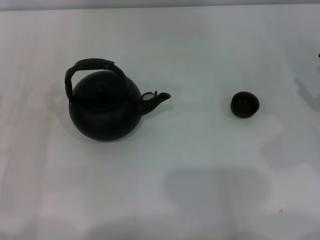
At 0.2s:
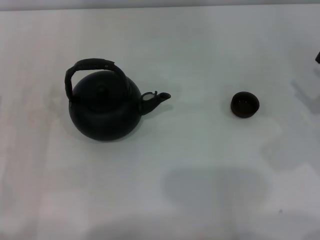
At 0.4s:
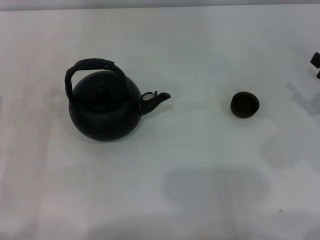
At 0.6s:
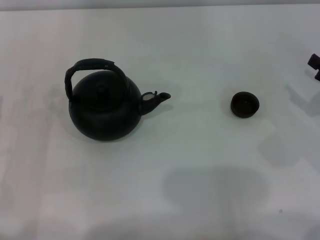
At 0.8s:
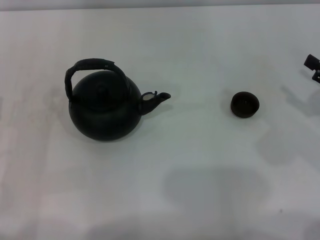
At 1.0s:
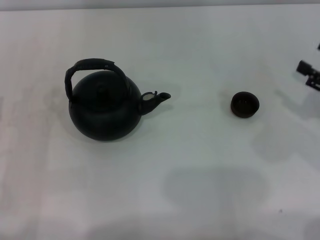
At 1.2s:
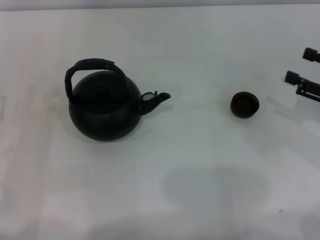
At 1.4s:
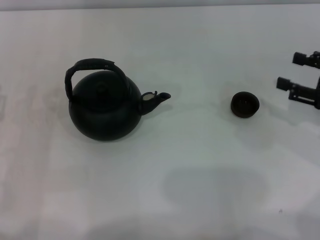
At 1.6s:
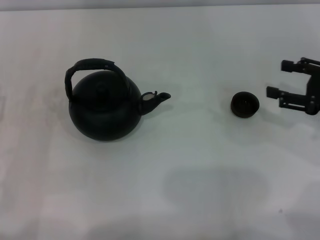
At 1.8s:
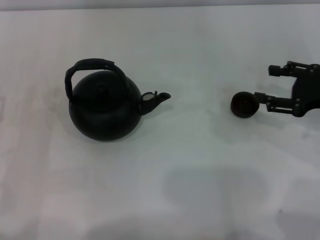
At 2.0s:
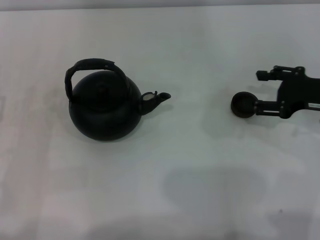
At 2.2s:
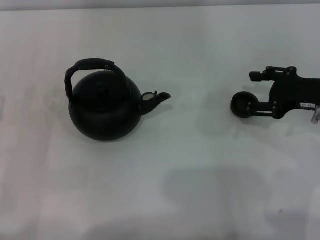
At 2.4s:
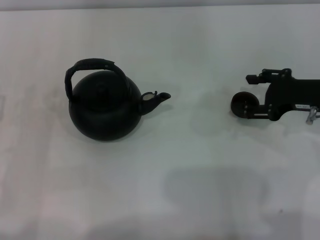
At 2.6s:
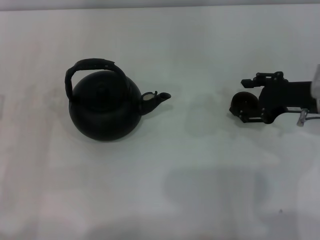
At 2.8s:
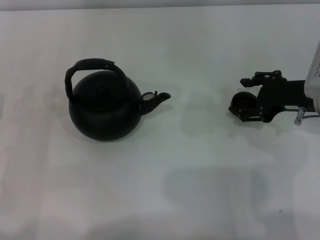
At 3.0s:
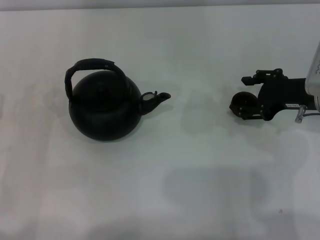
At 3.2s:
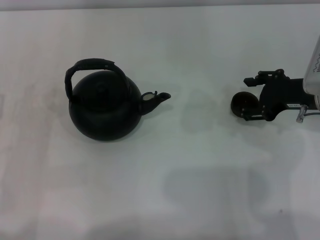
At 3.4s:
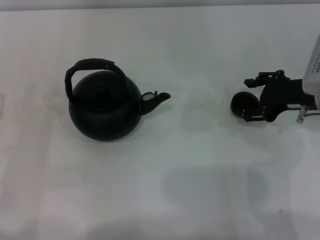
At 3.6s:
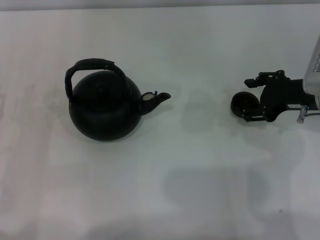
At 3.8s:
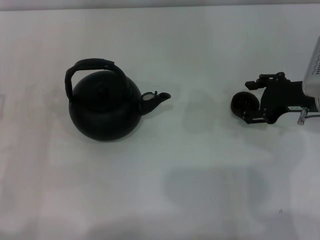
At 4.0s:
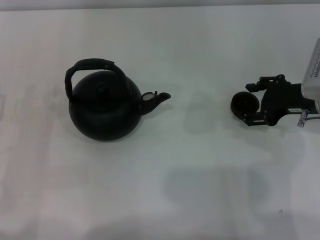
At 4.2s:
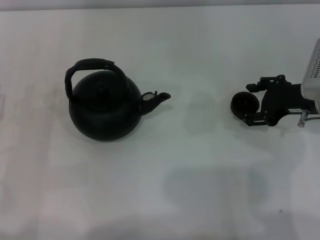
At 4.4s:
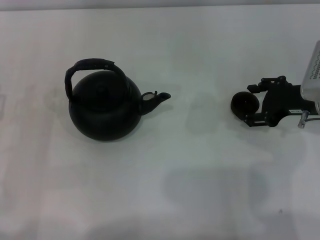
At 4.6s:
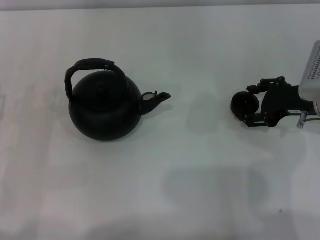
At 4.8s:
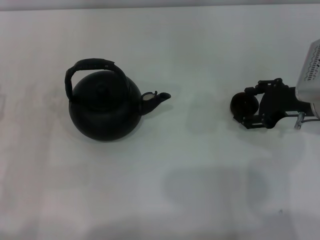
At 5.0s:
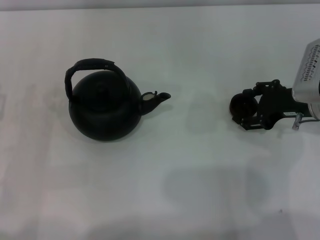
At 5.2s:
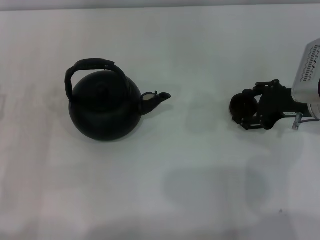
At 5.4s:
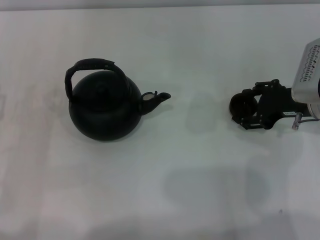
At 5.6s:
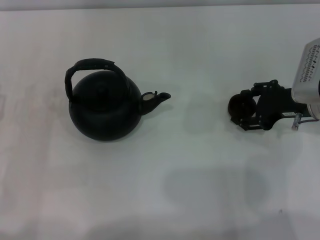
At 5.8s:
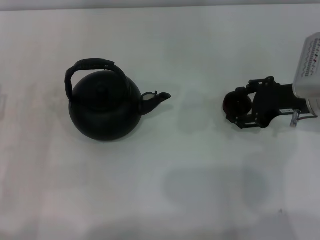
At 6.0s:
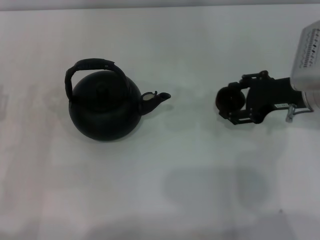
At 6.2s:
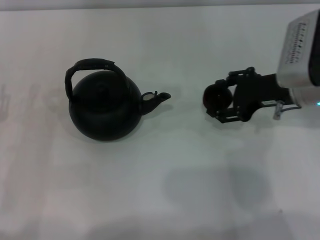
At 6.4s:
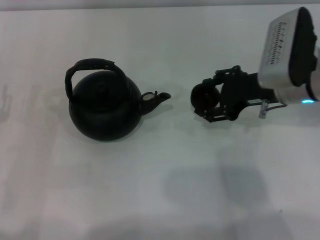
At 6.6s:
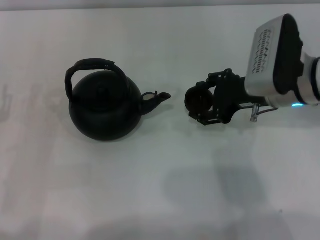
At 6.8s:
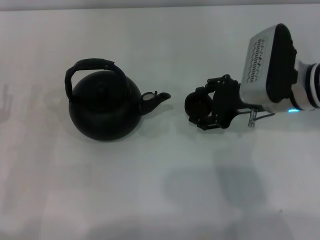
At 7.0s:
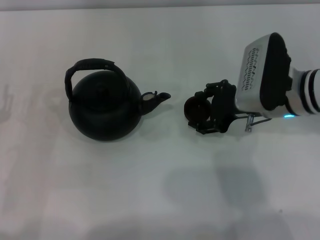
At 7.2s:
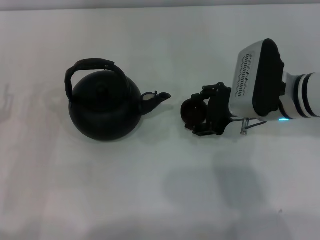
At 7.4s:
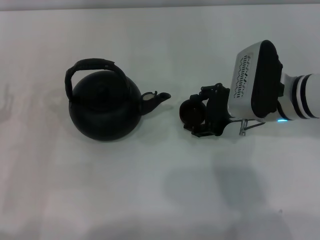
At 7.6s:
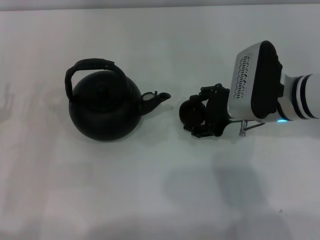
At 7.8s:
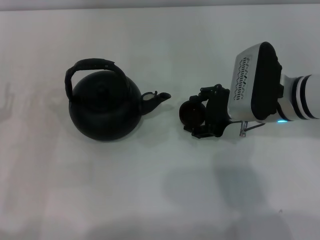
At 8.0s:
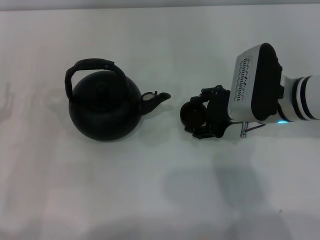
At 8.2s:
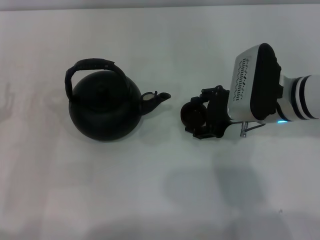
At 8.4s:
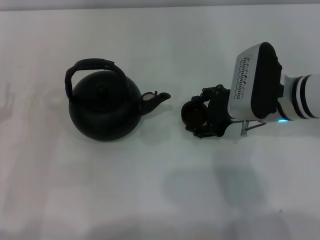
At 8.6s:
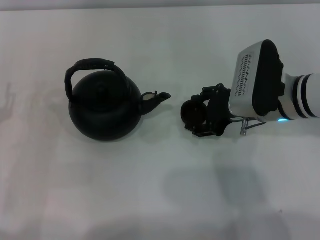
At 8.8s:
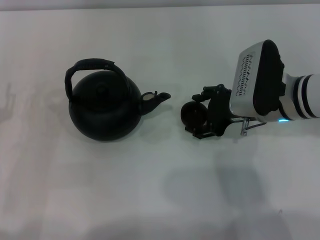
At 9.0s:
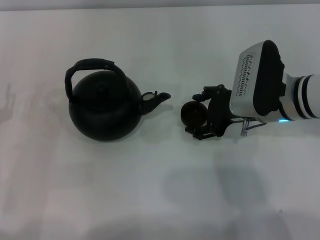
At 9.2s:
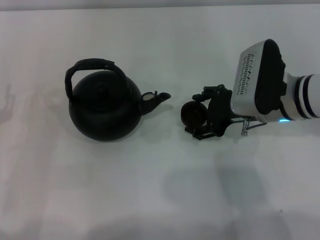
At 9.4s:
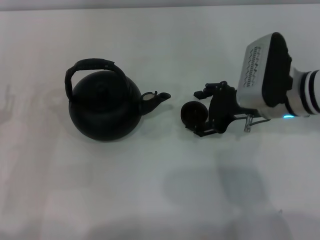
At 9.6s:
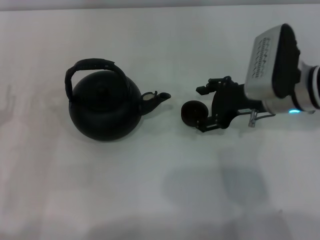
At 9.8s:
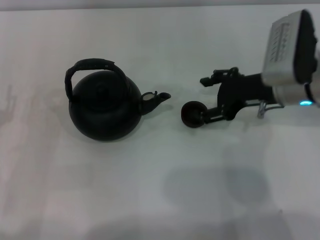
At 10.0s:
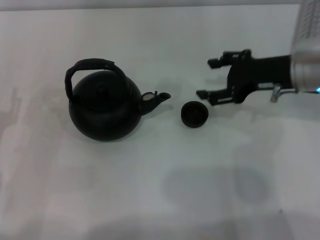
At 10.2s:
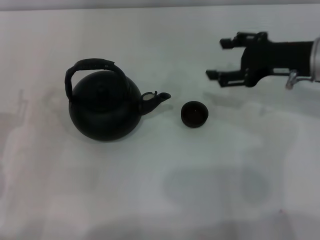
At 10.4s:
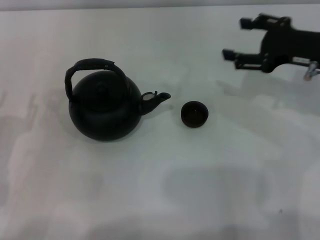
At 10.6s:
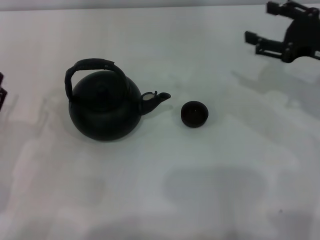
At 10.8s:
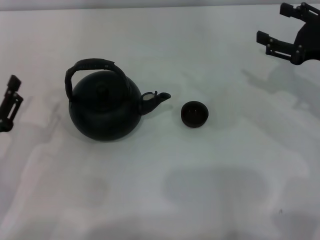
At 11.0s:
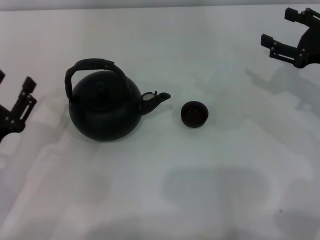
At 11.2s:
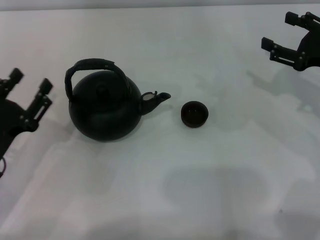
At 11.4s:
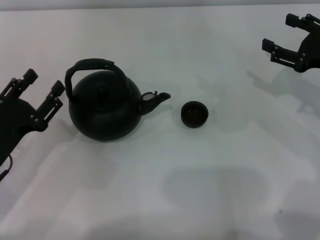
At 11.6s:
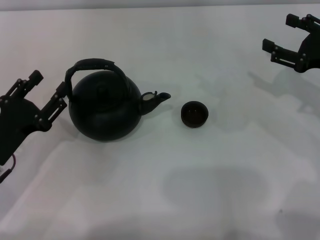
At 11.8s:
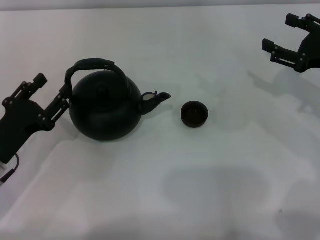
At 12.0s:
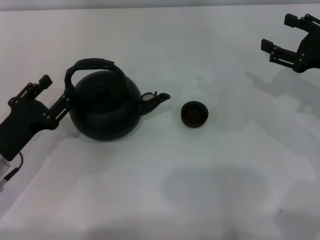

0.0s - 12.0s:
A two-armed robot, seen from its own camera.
Task of the whole recording: Grasp the handle of the teapot with one hand and pour tea into the teacup.
Step, 0.0s - 5.8s: Pick up the teacup with the right gripper.
Step, 6.0s - 9.6s: Place the teacup in the center of view with the right gripper.
0.0s - 1.6s: The right gripper moves approximately 5 cm.
1.6s - 3.0s: The right gripper heads to the left, covering roughly 5 cm.
3.0s - 4.4s: Both grippers stay about where they are.
4.4s - 6.0s: There are only small adjustments of the grippers.
6.0s - 7.6s: The right gripper is displaced to the left by some 5 cm.
7.6s - 9.0s: Neither gripper changes place.
9.0s - 10.4s: The right gripper moves to the right and upward, roughly 10 cm.
10.4s - 12.0s: The right gripper shifts by some 5 cm.

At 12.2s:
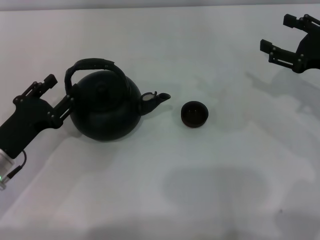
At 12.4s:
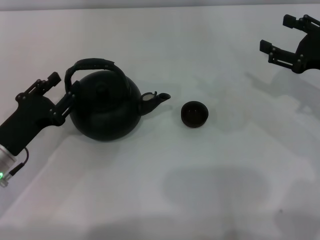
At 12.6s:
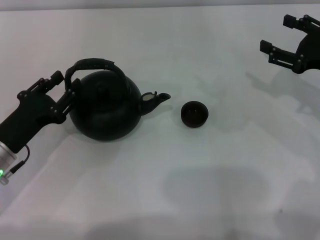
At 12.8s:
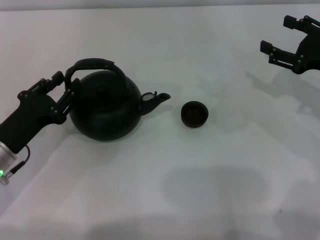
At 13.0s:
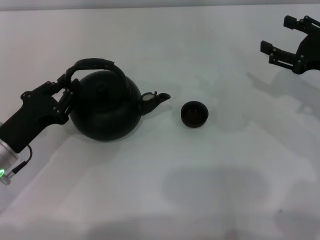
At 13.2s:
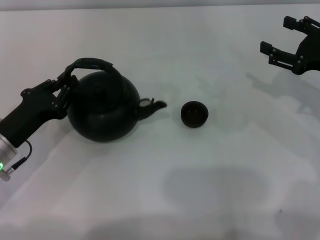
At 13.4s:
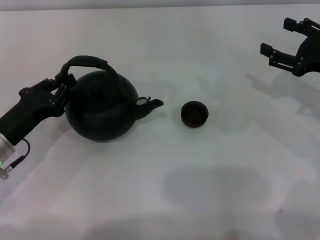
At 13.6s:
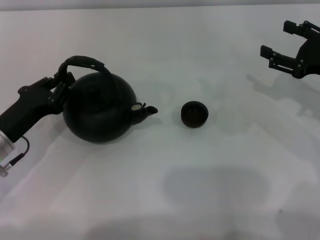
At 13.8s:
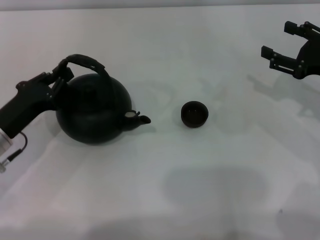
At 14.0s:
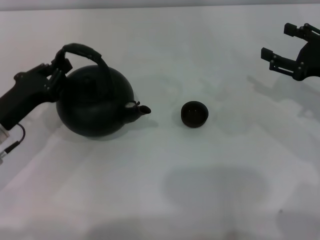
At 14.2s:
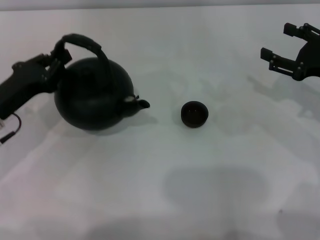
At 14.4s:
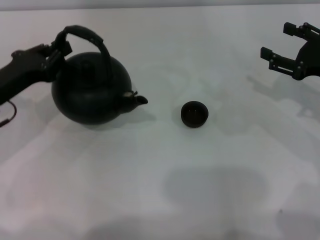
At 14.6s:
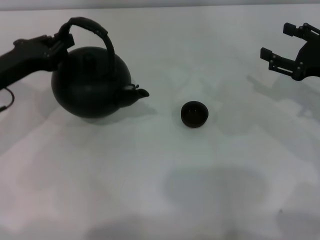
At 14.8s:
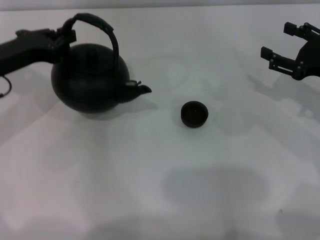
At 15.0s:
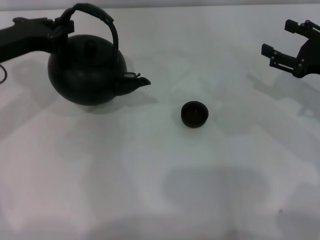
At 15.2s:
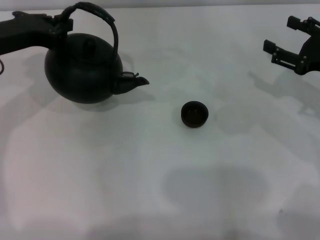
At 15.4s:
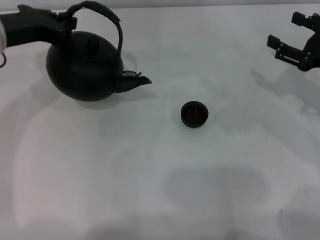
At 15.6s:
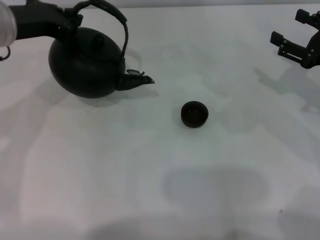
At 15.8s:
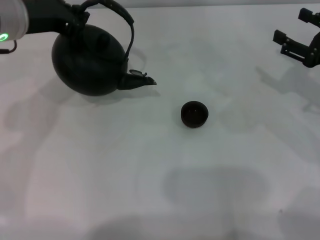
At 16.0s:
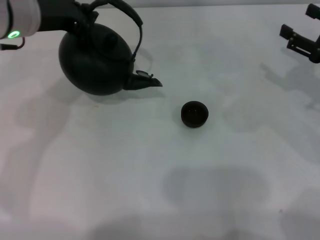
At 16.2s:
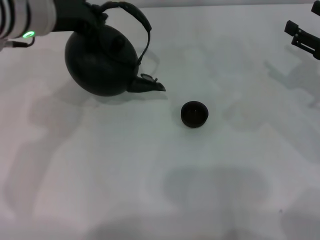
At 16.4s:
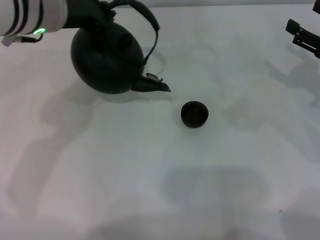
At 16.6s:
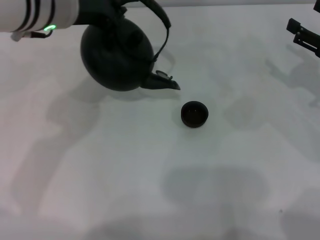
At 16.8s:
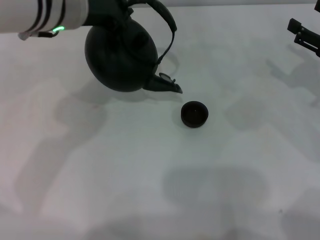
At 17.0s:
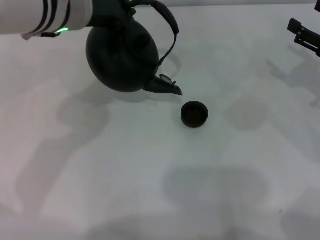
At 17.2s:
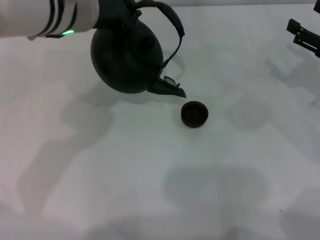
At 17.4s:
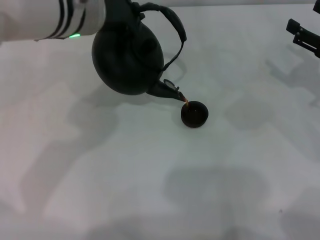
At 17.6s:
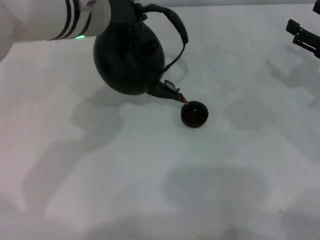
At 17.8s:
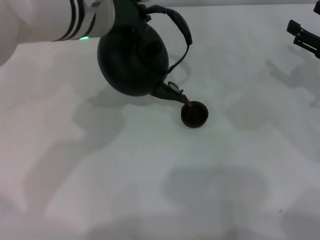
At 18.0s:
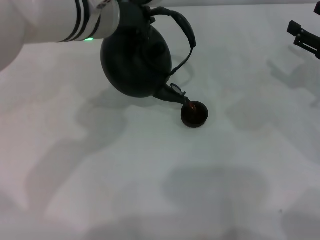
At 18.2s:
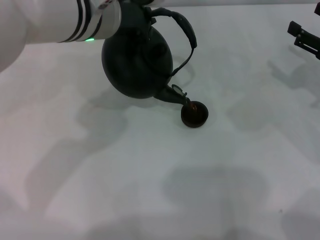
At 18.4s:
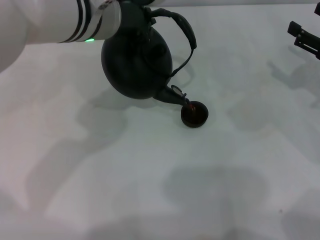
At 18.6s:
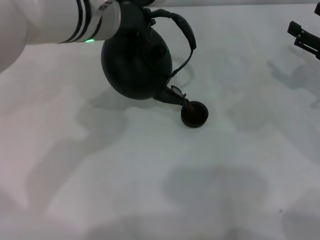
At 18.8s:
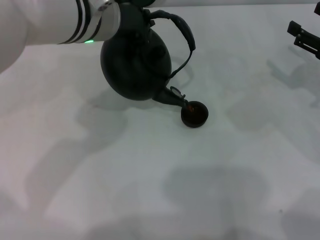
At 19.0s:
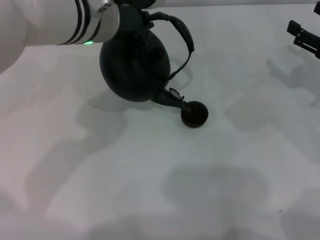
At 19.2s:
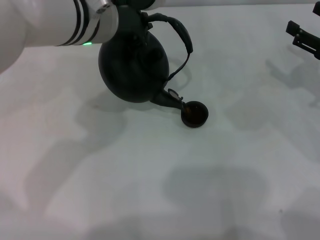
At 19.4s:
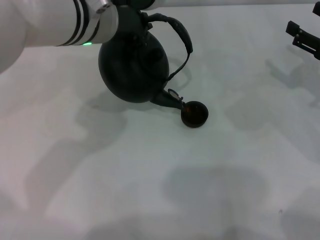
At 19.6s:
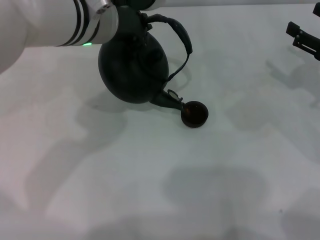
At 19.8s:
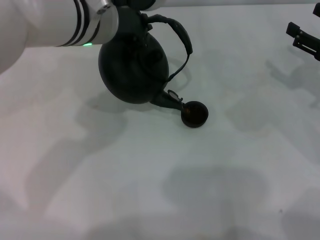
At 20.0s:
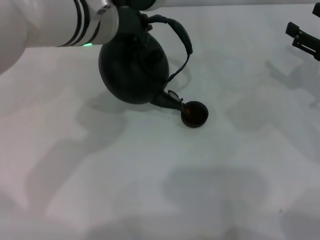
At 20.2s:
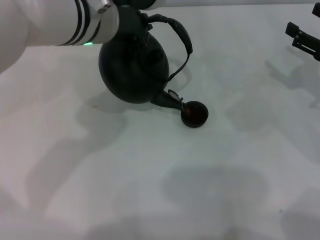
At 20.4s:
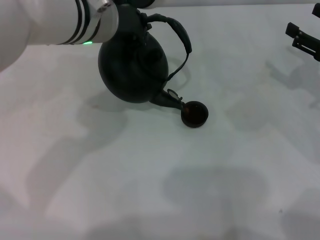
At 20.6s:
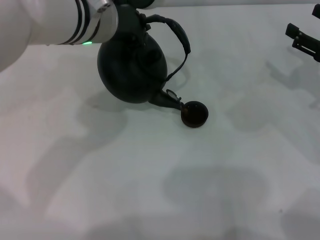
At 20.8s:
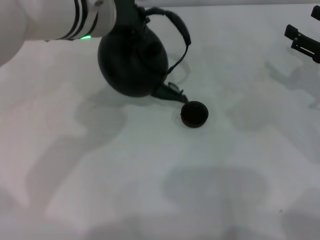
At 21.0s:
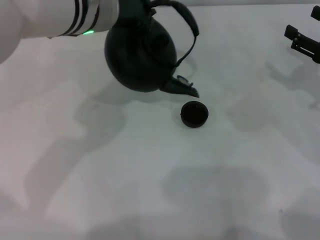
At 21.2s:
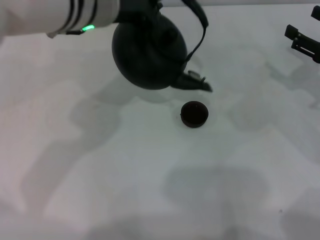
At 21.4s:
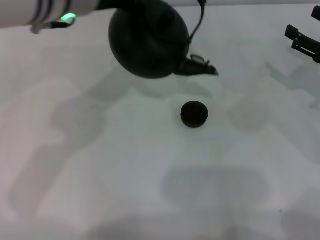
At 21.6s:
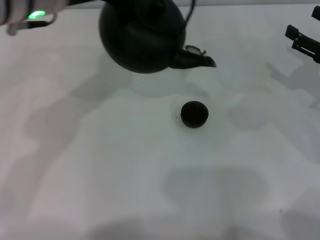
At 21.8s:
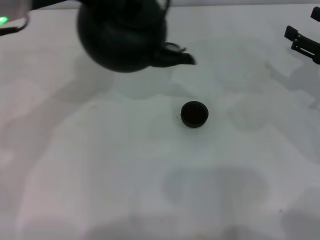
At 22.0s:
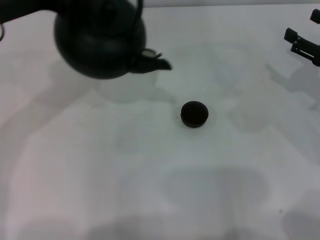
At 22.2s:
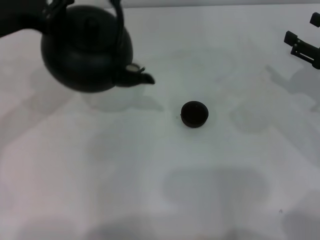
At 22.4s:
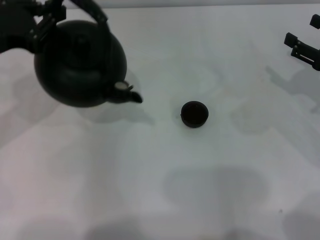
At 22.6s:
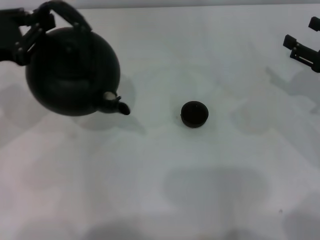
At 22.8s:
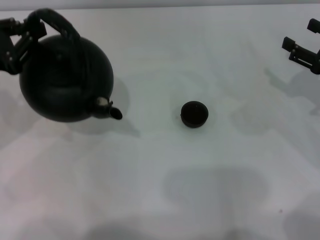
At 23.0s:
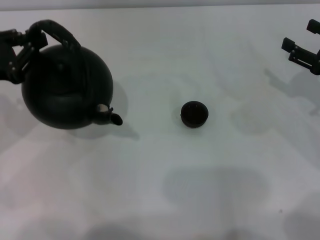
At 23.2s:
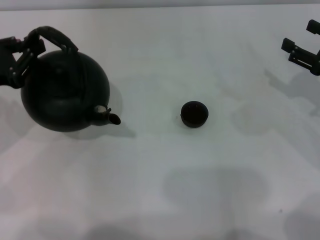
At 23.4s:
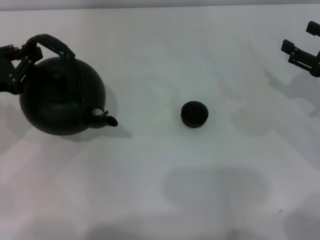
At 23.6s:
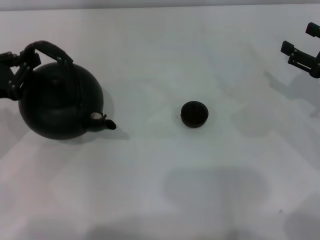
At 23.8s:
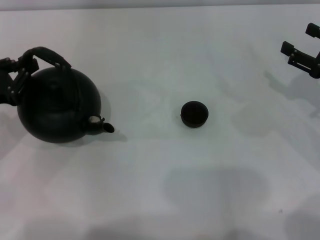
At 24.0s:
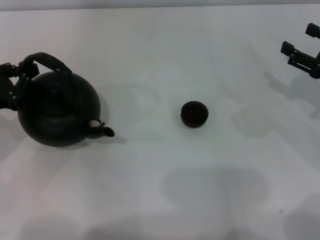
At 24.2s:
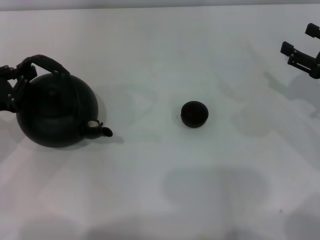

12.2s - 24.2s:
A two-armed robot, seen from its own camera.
Task of the whole recording: Grasp the handle of the teapot with one hand and pour tea into the teacup.
Step, 12.2s - 14.6s: Pick up the teapot with the left gripper.
Step, 14.8s - 21.0s: Pour tea into the teacup with the left gripper.
12.2s - 13.8s: The left gripper closes up.
13.8s - 15.2s: The left gripper shifts about 15 cm upward and forward.
15.2s - 16.6s: The left gripper goes roughly 15 cm to the right and upward.
16.6s - 18.2s: The left gripper ends up about 5 cm from where it was.
18.2s - 19.8s: The two grippers keep their place.
19.8s - 21.2s: The grippers stay close to where they were, moving slightly.
21.2s - 22.6s: The left gripper moves to the left, approximately 20 cm.
22.6s - 24.2s: The left gripper moves downward, approximately 10 cm.
